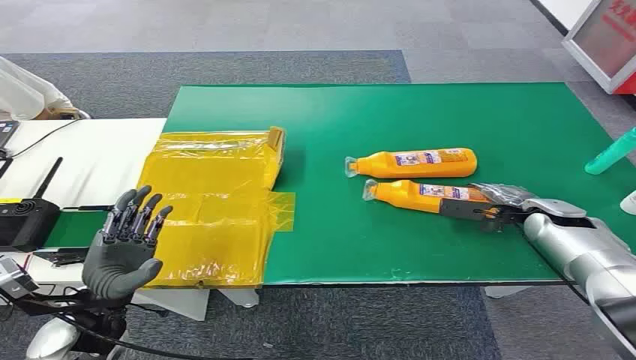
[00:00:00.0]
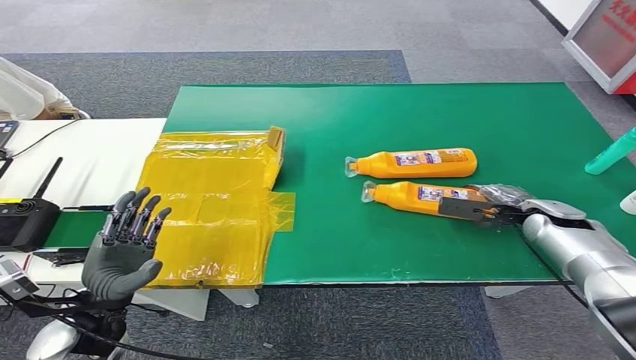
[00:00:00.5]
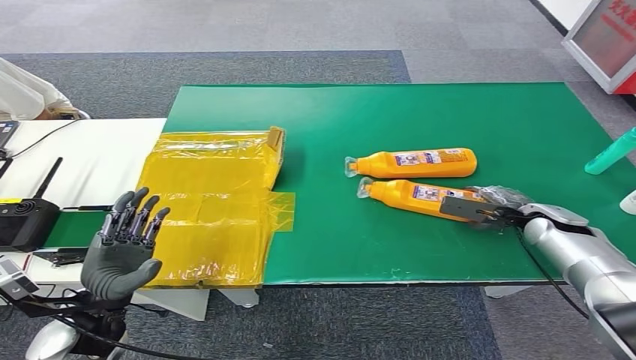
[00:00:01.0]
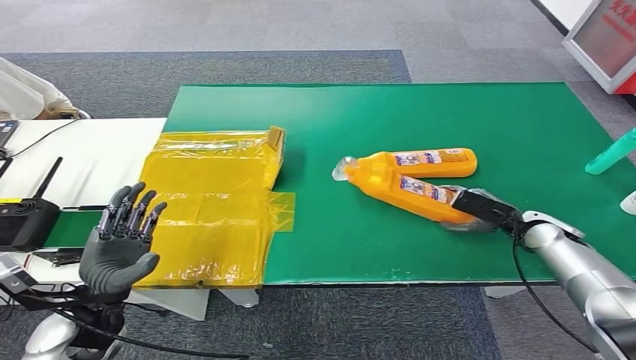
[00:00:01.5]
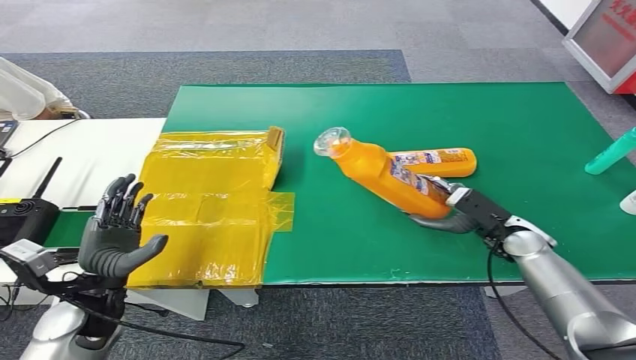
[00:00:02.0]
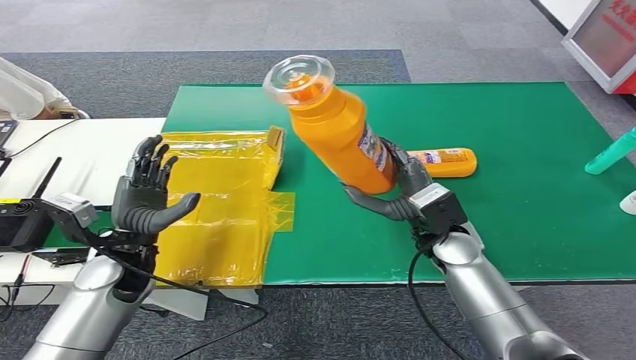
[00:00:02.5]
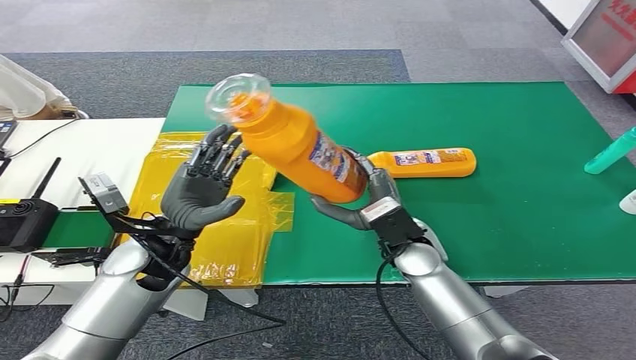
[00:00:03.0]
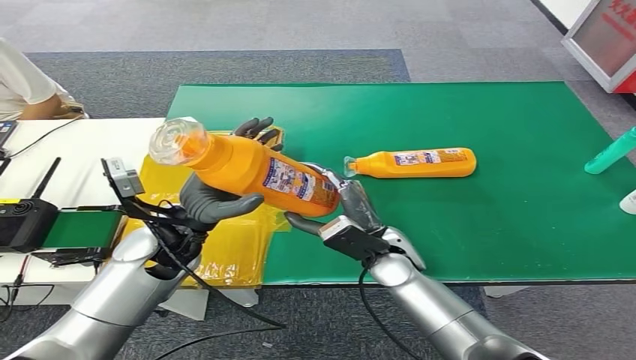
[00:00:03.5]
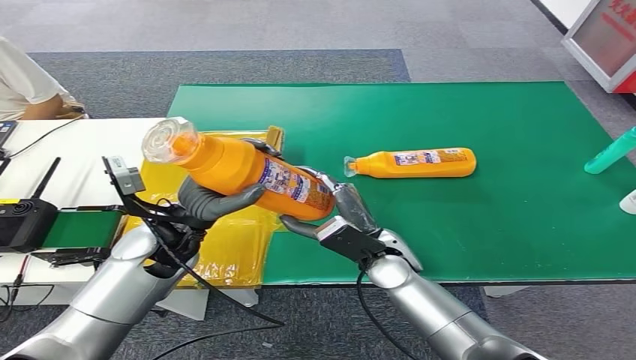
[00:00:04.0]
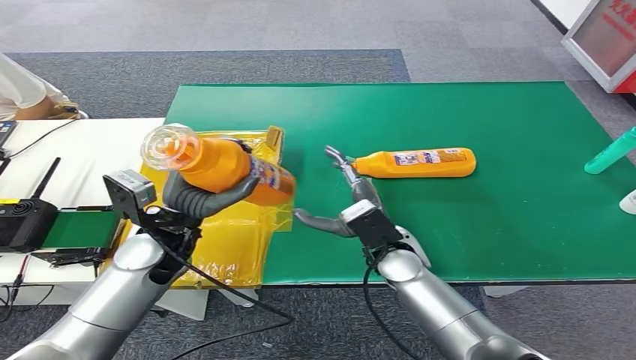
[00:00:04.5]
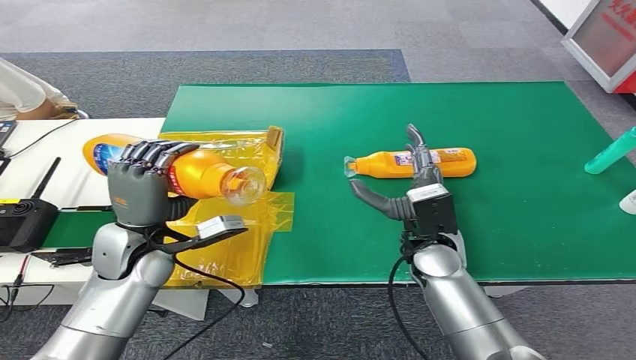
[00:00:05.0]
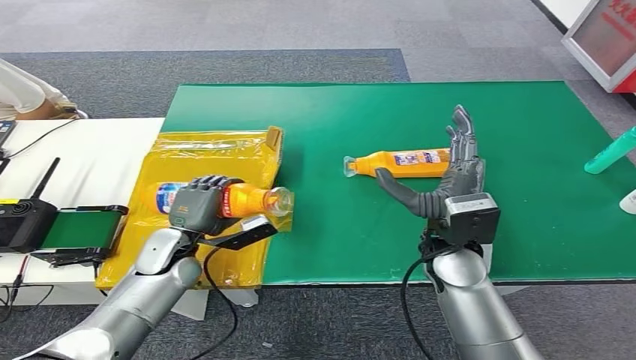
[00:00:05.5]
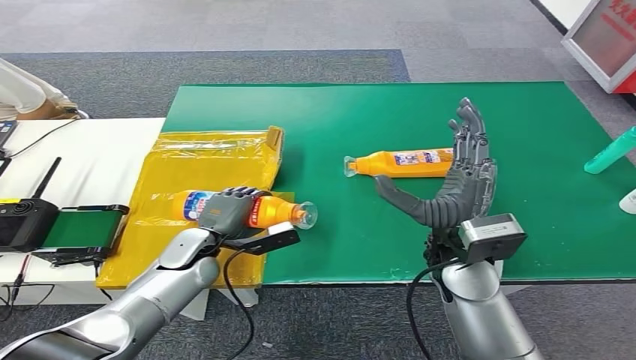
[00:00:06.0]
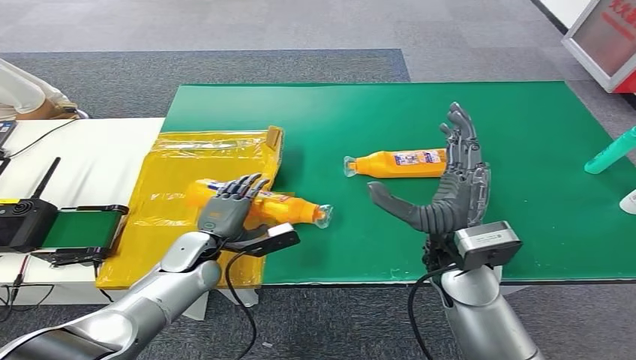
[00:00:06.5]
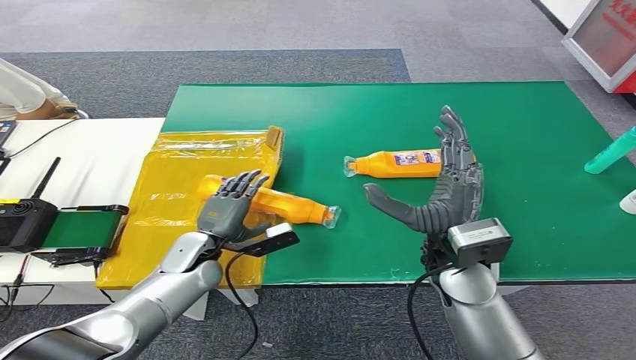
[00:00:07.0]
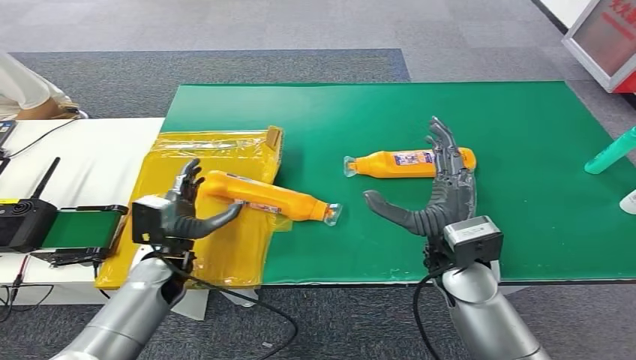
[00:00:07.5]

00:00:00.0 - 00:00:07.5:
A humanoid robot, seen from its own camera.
Step, 00:00:00.0 - 00:00:02.5: Pick up the bottle from the table.
Step, 00:00:04.0 - 00:00:07.5: Turn the bottle to the front side.
